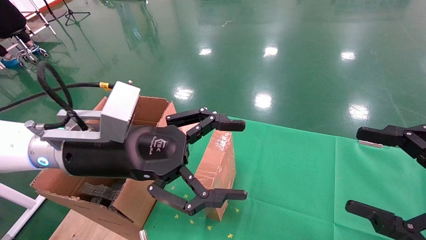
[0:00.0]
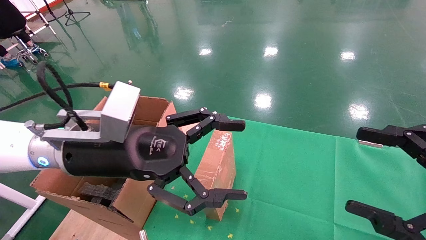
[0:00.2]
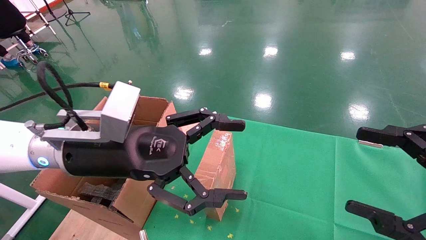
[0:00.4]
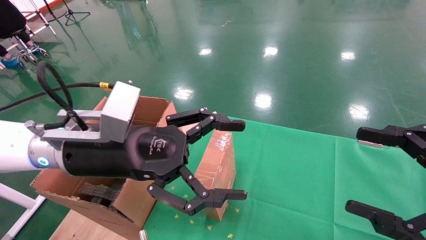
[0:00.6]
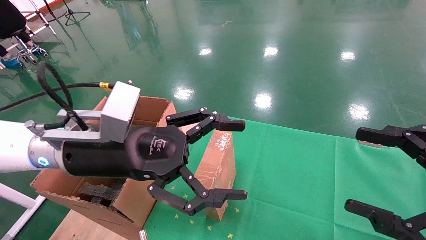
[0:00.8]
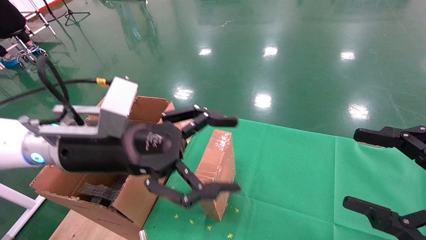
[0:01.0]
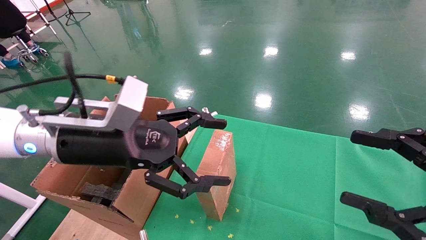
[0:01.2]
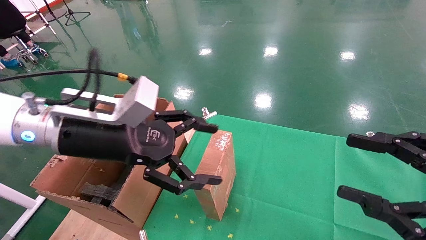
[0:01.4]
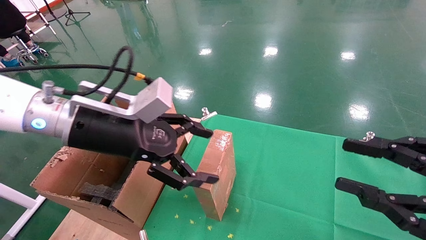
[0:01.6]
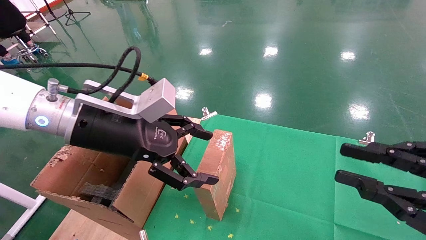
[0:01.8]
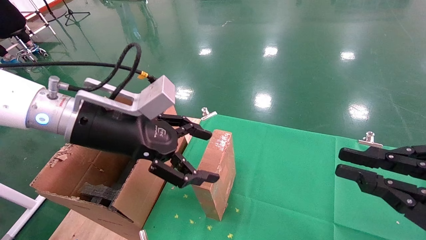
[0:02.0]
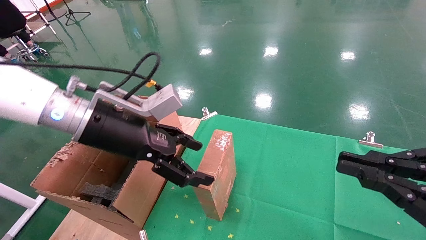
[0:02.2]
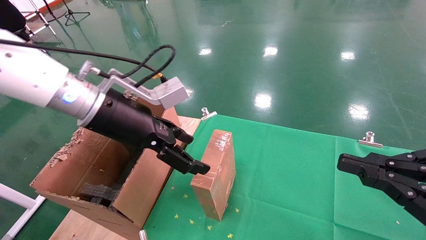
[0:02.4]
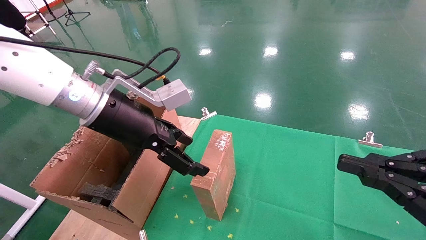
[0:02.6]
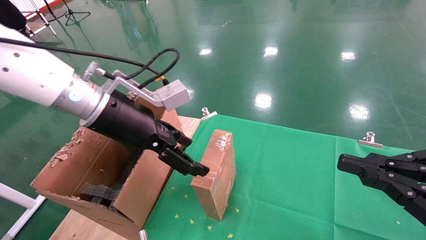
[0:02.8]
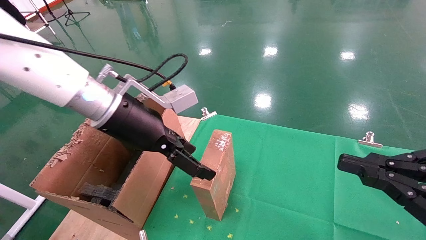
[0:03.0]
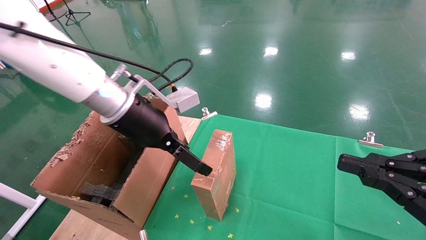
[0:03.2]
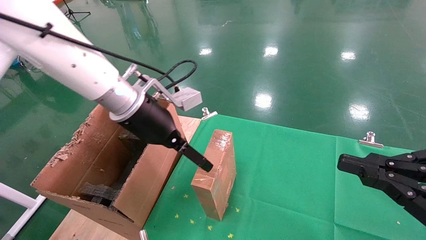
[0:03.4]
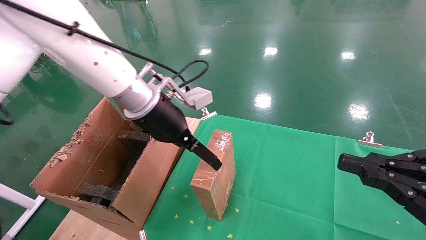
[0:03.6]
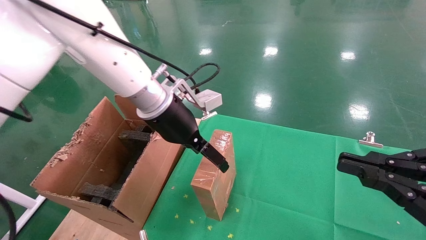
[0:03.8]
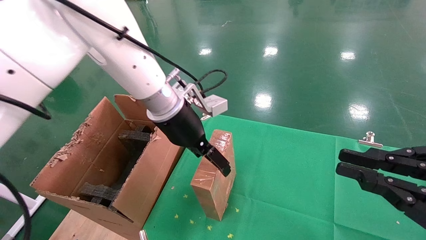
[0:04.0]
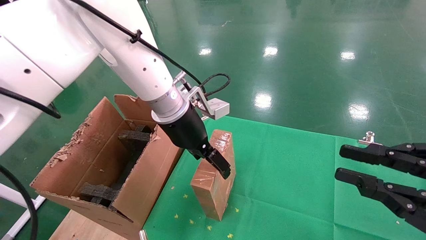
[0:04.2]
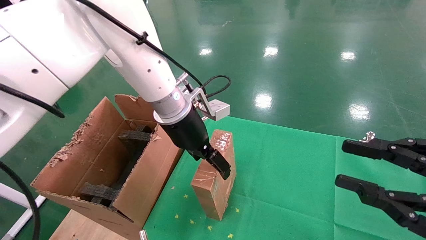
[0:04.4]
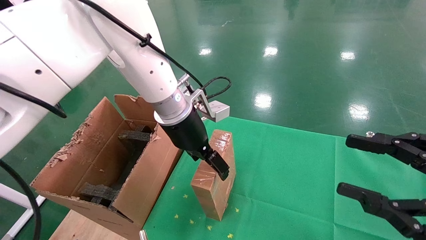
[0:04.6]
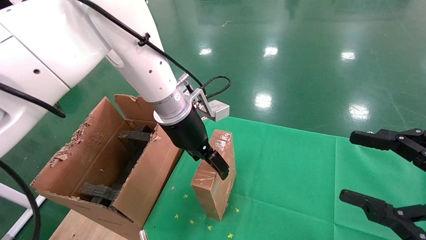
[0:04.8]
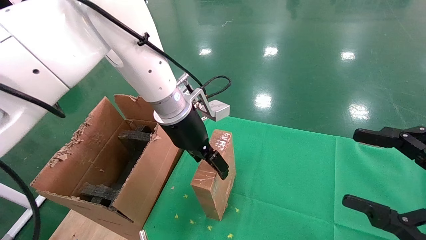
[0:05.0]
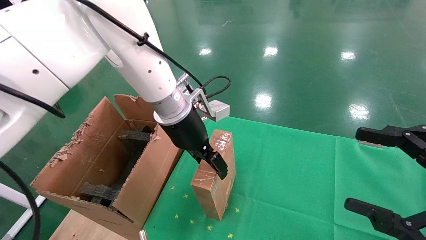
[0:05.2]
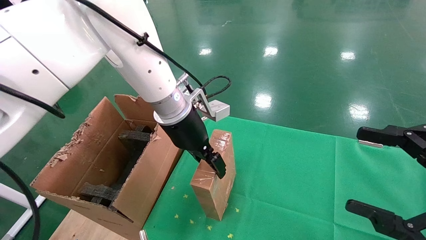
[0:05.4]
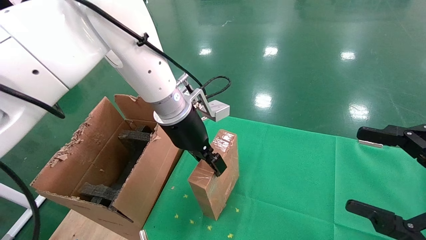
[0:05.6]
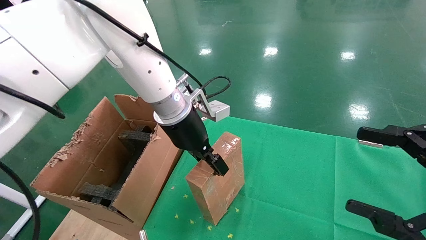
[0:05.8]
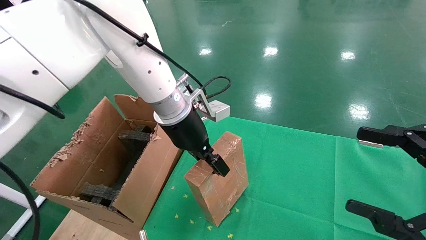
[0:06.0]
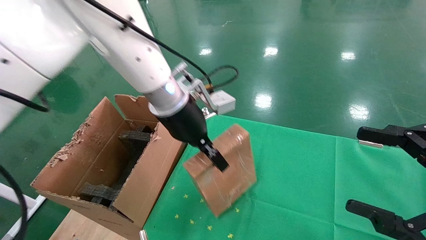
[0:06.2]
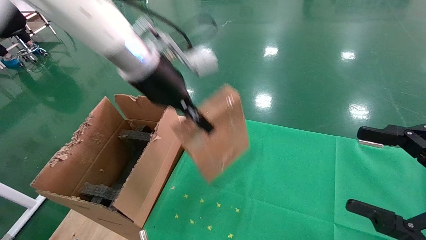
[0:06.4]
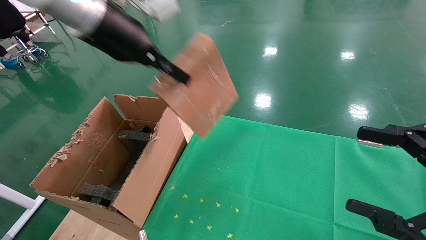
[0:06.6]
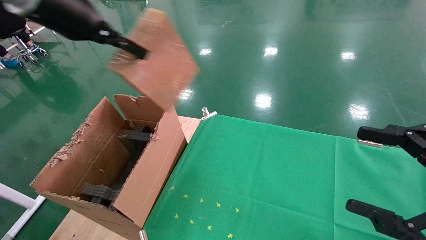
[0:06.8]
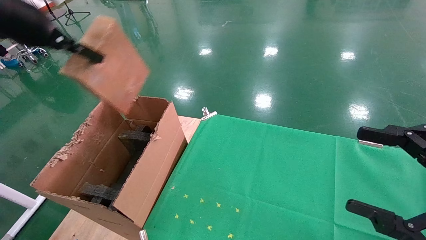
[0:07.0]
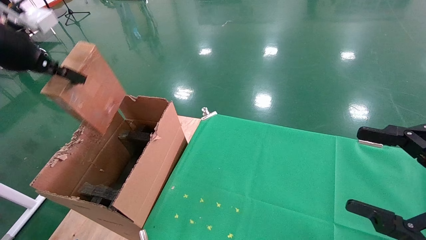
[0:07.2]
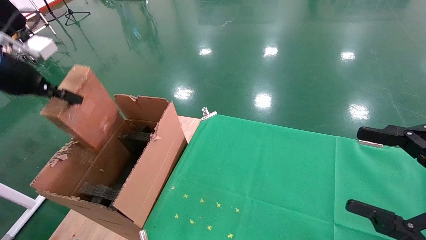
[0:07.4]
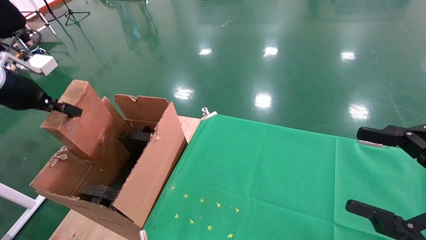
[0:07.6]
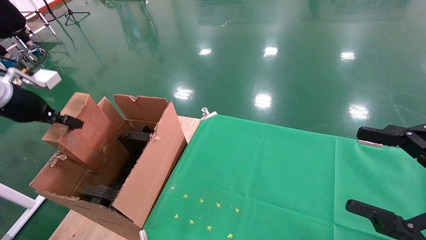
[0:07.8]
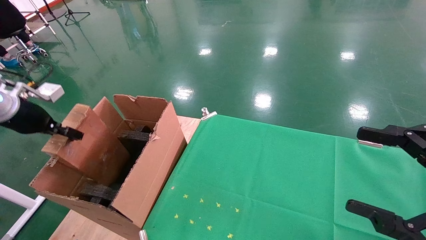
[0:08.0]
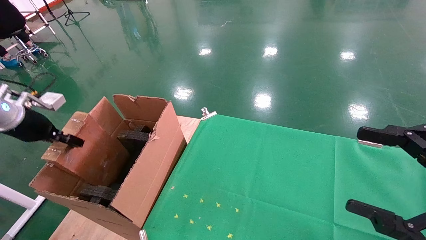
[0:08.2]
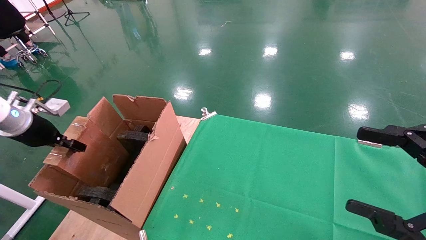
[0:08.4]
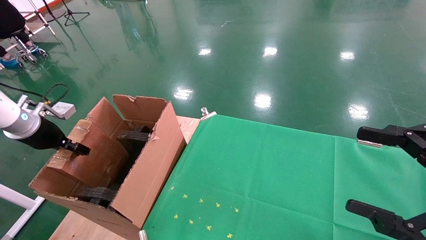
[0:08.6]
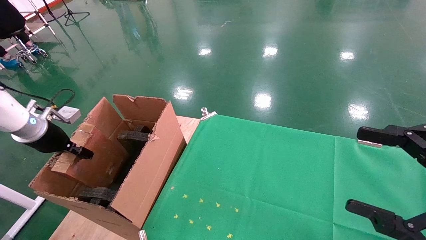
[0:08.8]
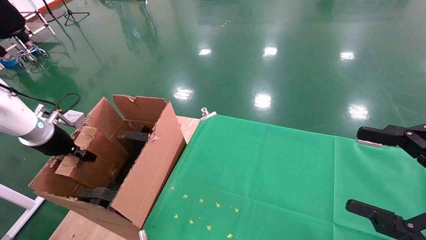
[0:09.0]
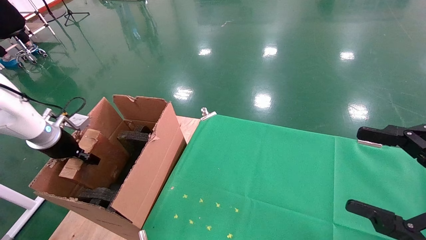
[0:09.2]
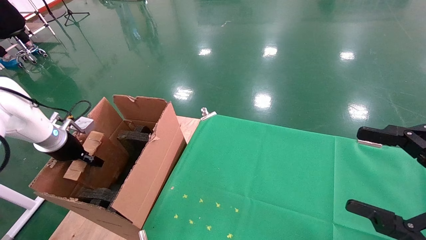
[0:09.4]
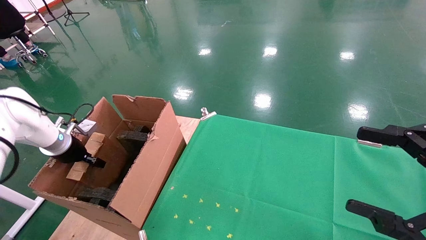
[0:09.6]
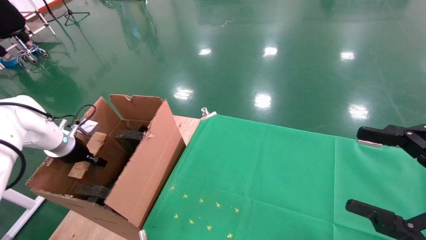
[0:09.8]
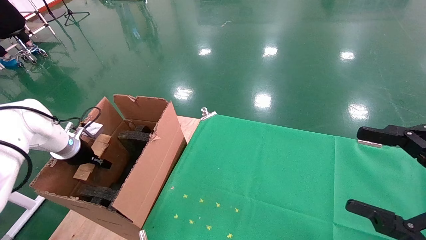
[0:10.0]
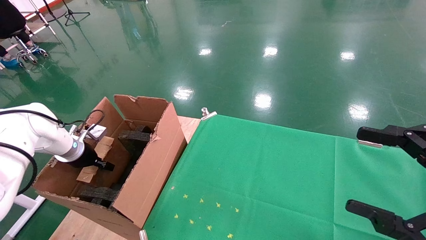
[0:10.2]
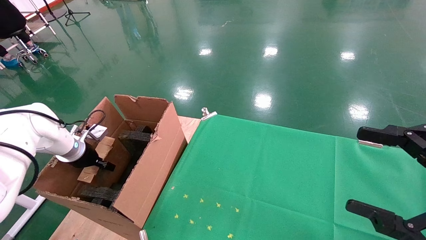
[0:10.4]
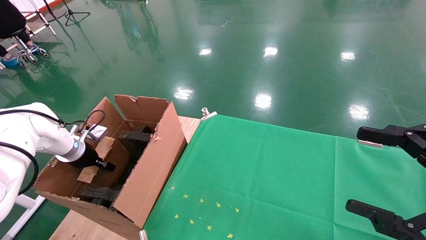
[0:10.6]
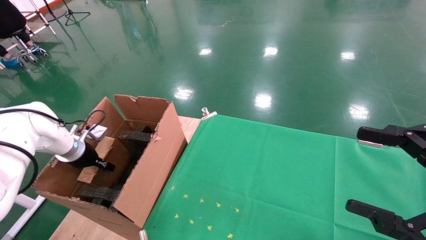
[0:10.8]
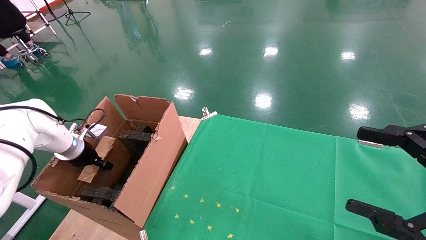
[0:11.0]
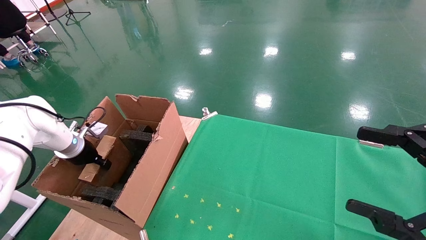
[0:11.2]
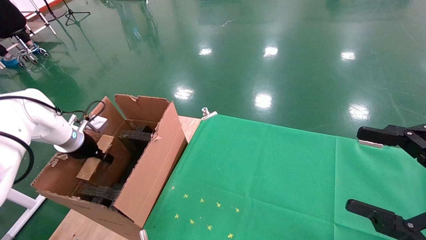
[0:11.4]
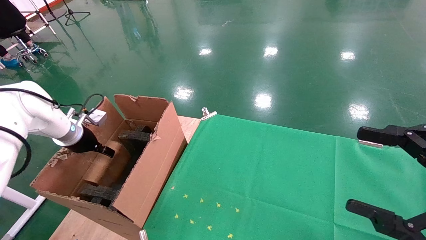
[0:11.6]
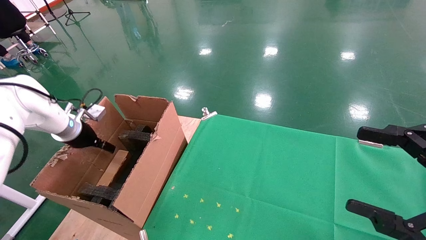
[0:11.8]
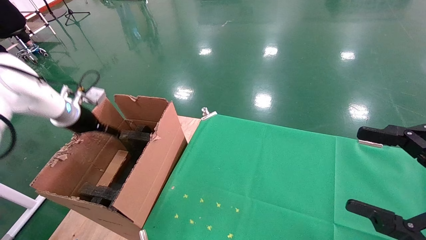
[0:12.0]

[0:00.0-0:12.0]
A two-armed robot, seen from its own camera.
Task of the whole recording: using a robotic arm to pick up a cardboard box and palace it the carton.
Step, 0:01.2 to 0:05.8: Pick up the mouse and the power cord paper box.
0:00.0 to 0:01.6: The right gripper closes its fingers.
0:01.6 to 0:03.0: The right gripper closes up, while the left gripper is displaced forward by roughly 5 cm.
0:03.0 to 0:04.4: The left gripper shifts roughly 10 cm to the right and forward.
0:04.4 to 0:06.0: The right gripper opens up, while the left gripper closes.
0:06.0 to 0:07.6: The left gripper moves to the left, approximately 35 cm.
0:07.6 to 0:09.0: The left gripper travels downward by roughly 15 cm.
0:09.0 to 0:10.4: The left gripper travels downward by about 5 cm.
0:10.4 to 0:12.0: The left gripper shifts approximately 10 cm upward, and opens its fingers.

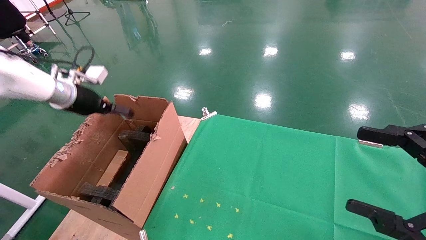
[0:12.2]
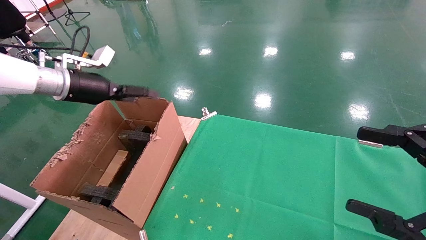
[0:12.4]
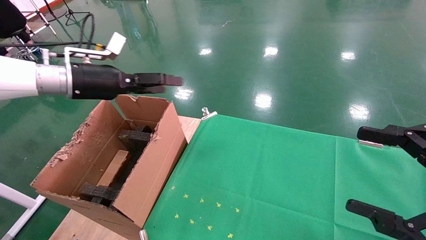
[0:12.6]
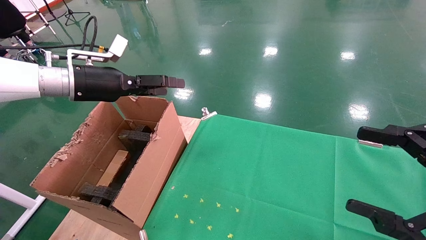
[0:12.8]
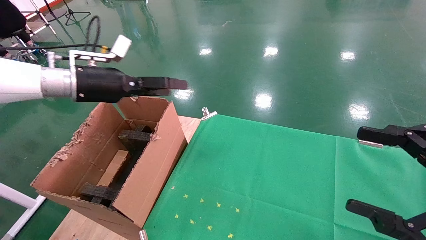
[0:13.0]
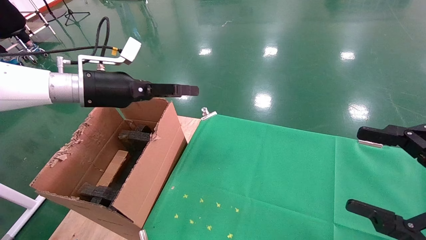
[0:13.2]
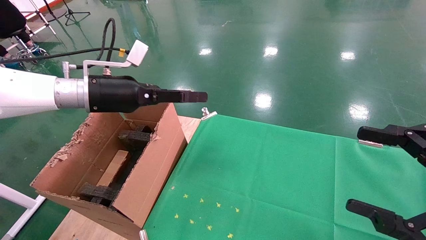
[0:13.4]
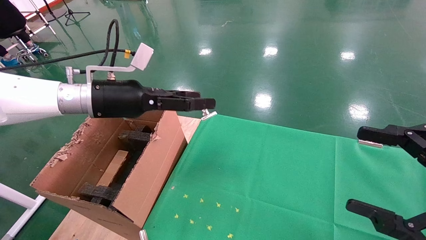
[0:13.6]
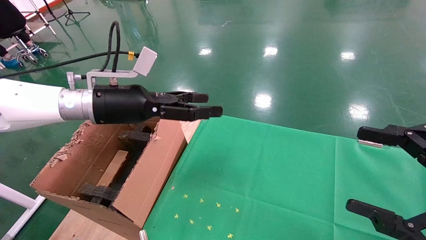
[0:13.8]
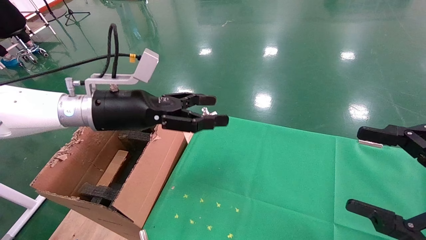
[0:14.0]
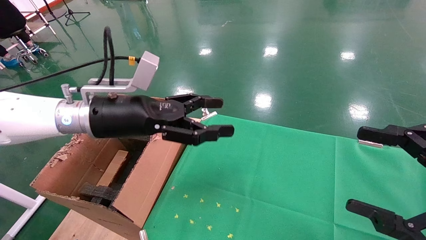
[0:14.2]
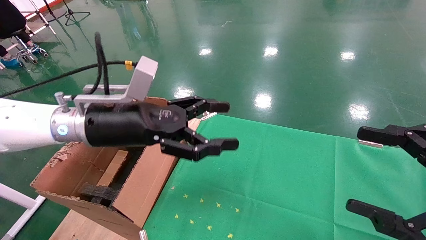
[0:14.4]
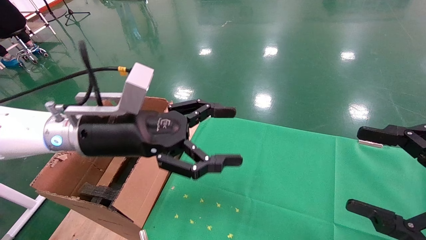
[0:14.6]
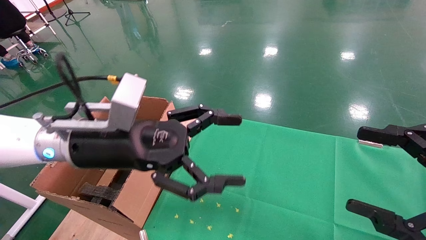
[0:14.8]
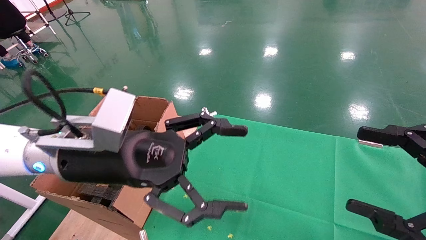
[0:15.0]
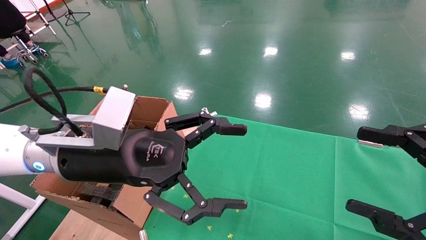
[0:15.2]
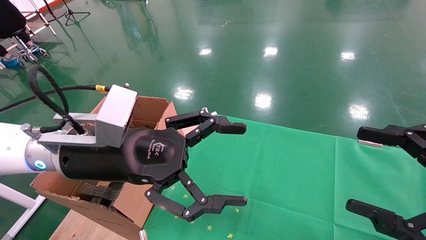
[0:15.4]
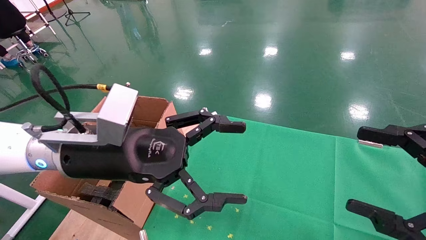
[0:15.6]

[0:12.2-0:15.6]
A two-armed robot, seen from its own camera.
Task of the whole recording: using a robotic arm to pick up a cardboard box and palace it the carton.
0:12.2 to 0:13.8: The left gripper goes about 15 cm to the right and backward.
0:13.8 to 0:15.6: The left gripper travels backward and to the right by some 10 cm.
